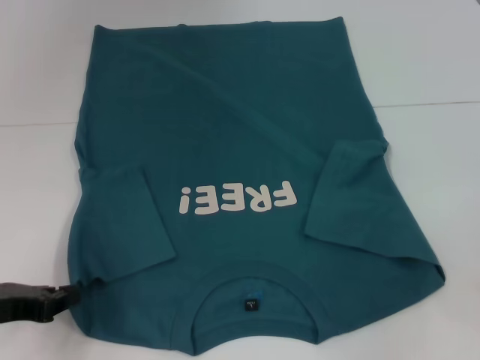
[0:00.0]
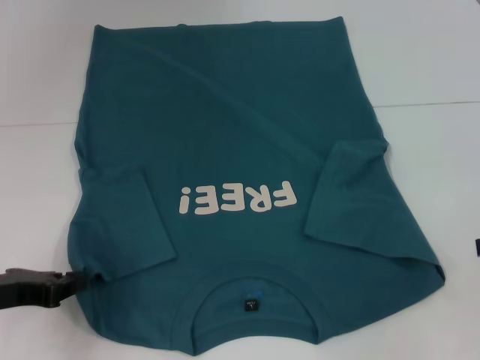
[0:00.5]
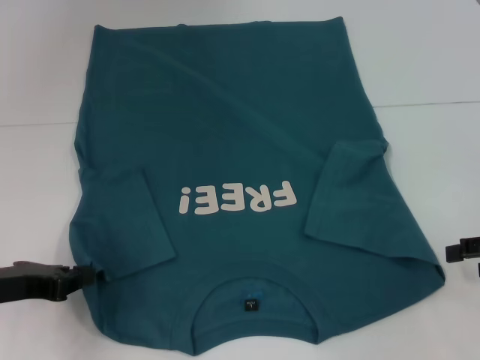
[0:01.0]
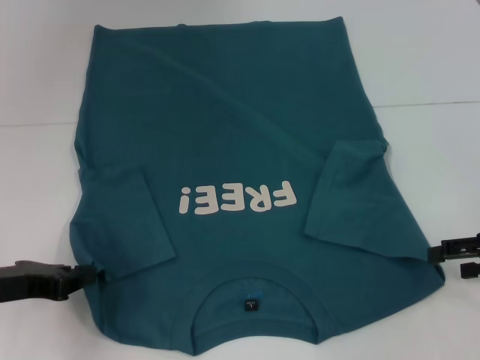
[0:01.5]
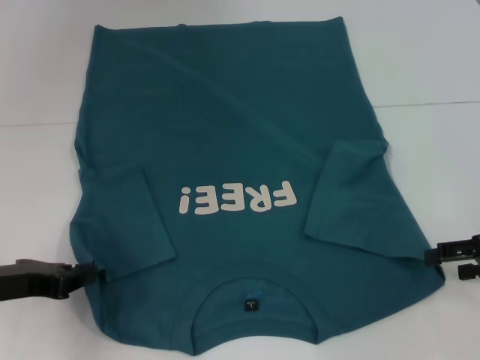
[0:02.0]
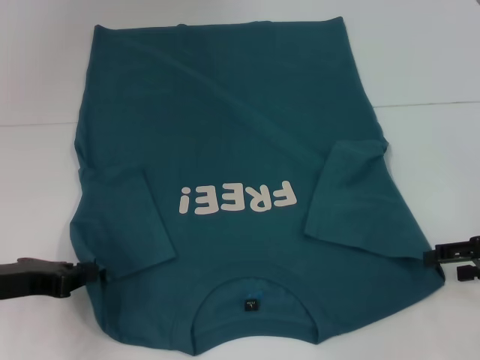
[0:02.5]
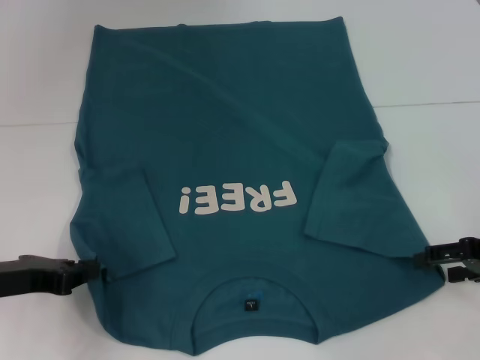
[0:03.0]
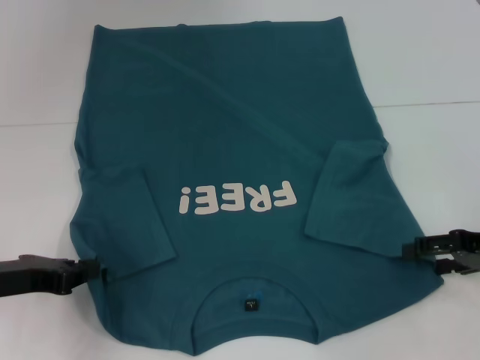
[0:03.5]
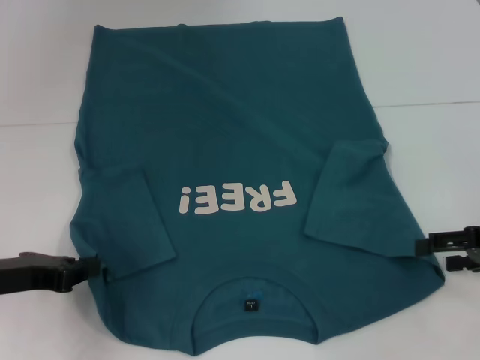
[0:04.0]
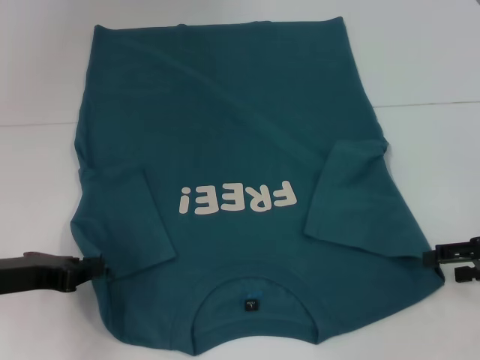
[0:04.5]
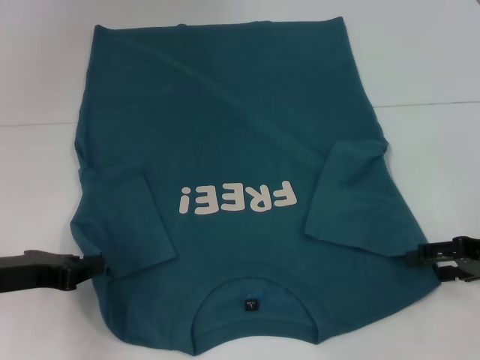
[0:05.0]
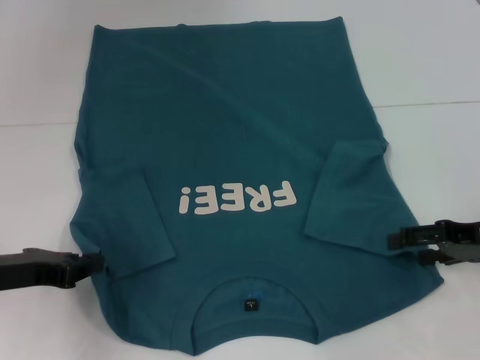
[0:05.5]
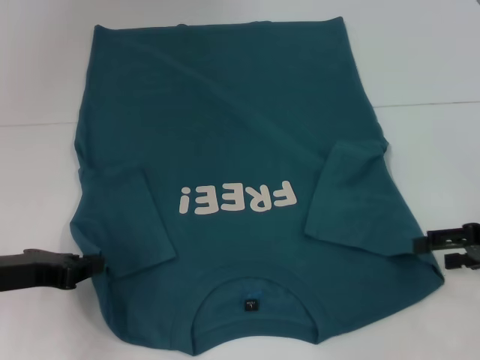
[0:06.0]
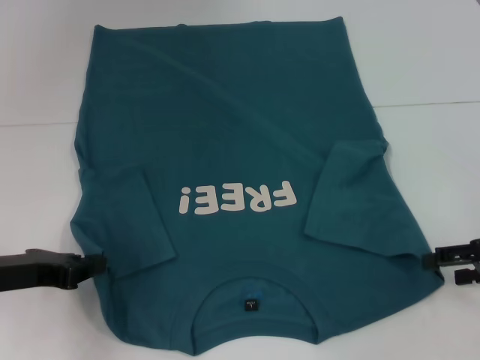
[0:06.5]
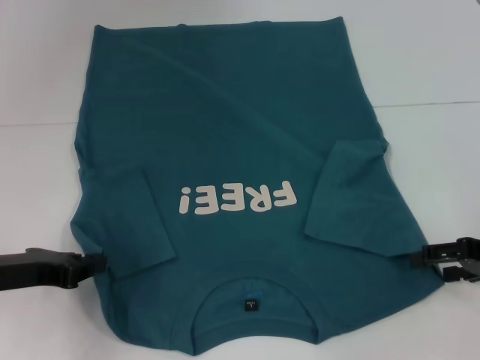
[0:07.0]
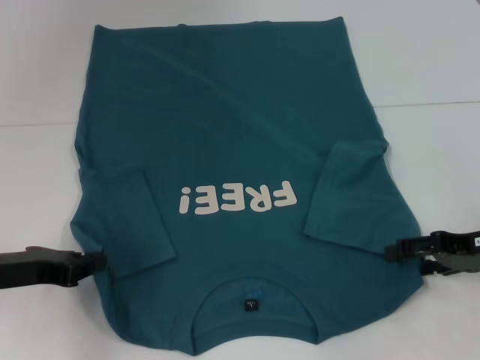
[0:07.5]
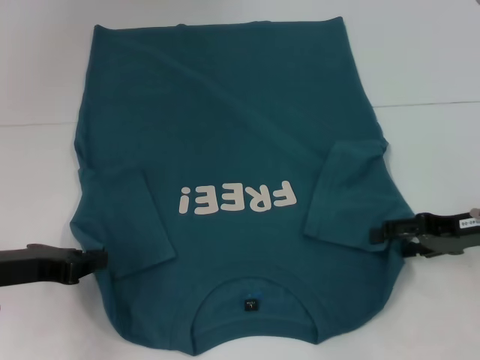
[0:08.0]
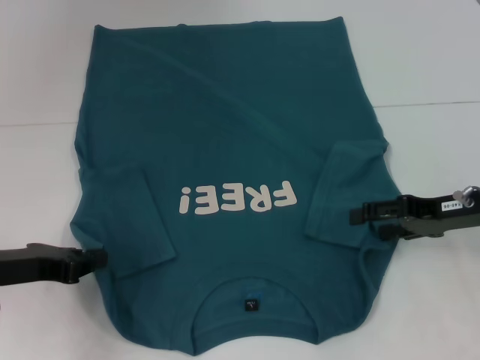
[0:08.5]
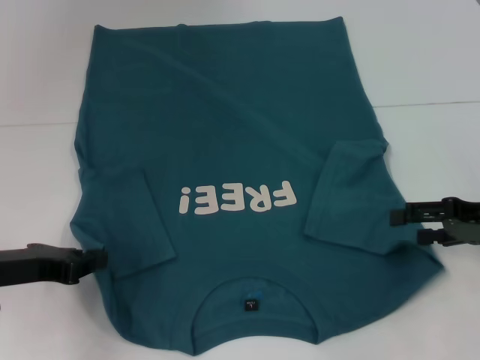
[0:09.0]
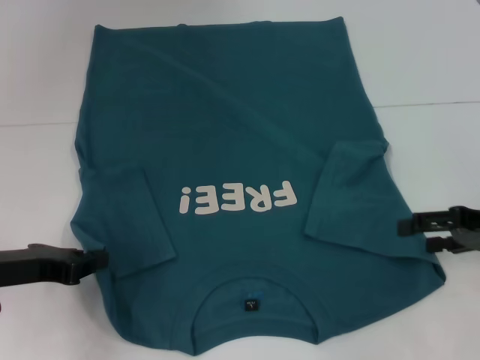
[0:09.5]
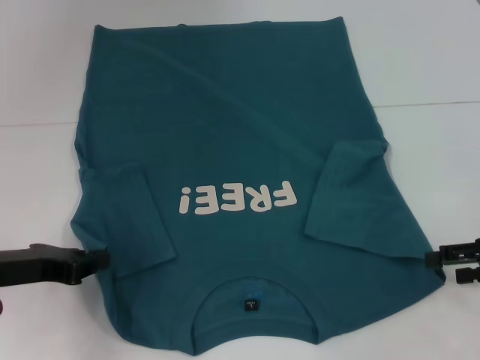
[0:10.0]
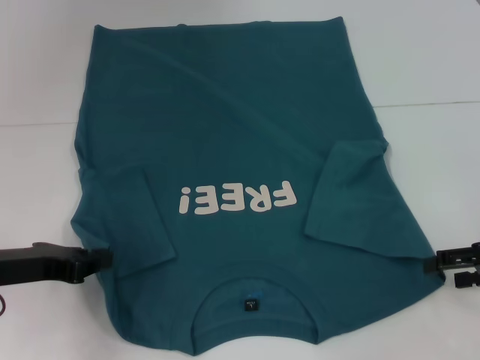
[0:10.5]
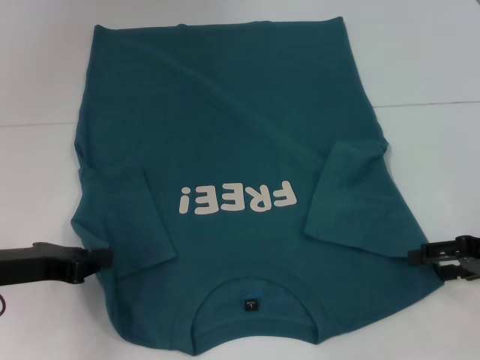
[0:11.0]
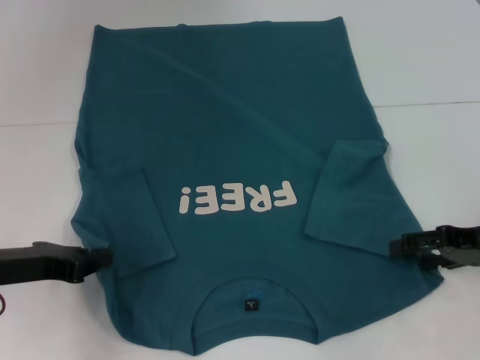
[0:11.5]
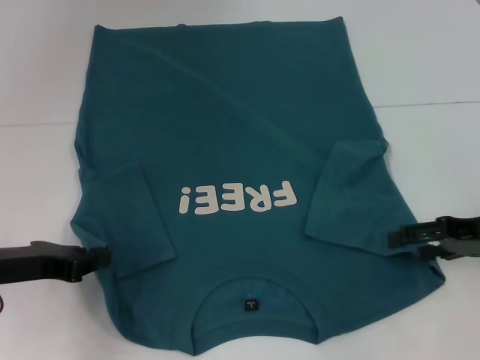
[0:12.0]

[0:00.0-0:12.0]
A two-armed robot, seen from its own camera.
0:00.0 to 0:02.0: The right gripper goes about 5 cm downward.
0:02.0 to 0:08.0: There are only small adjustments of the grippers.
0:08.0 to 0:10.0: The right gripper shifts roughly 5 cm to the right.
0:10.0 to 0:12.0: There are only small adjustments of the grippers.

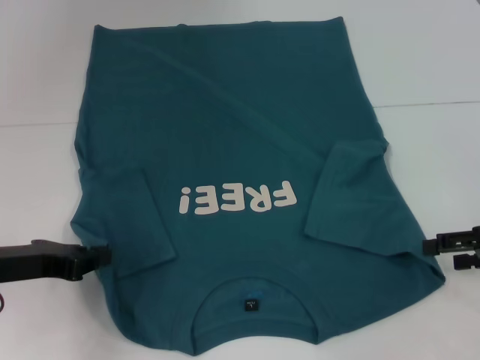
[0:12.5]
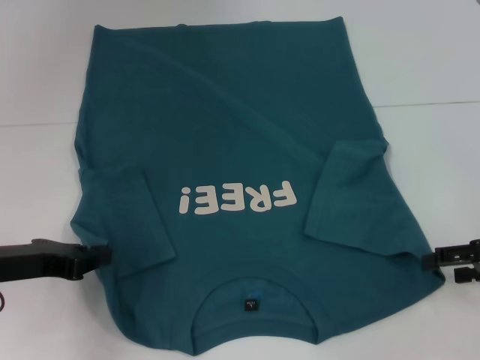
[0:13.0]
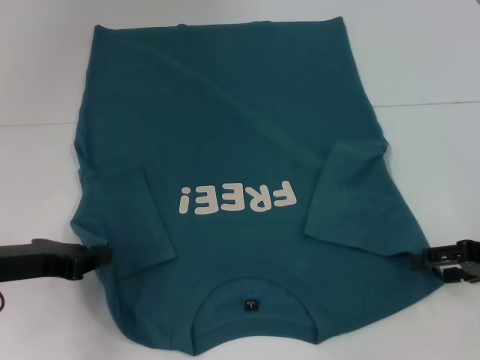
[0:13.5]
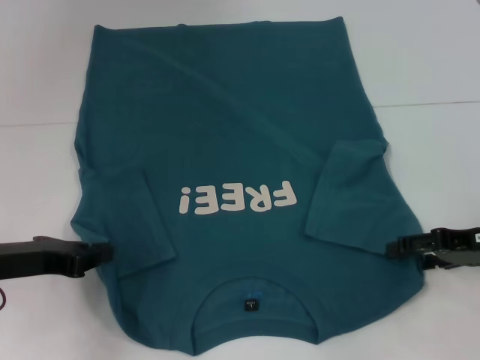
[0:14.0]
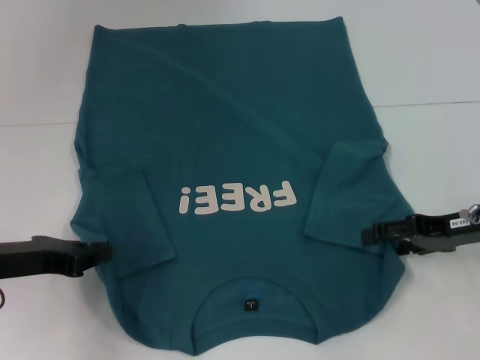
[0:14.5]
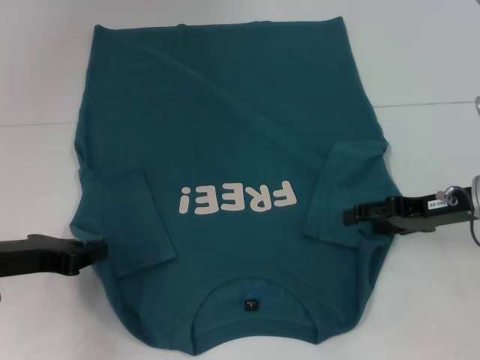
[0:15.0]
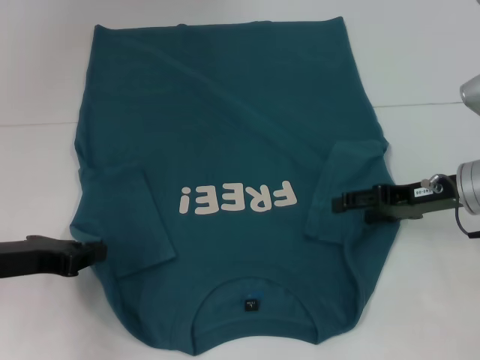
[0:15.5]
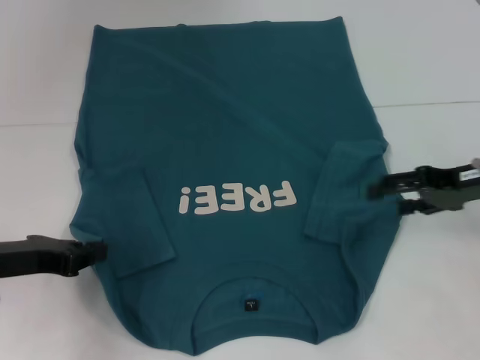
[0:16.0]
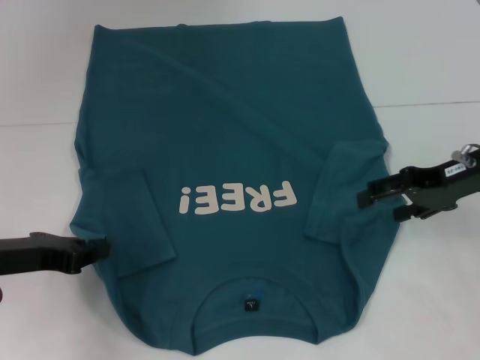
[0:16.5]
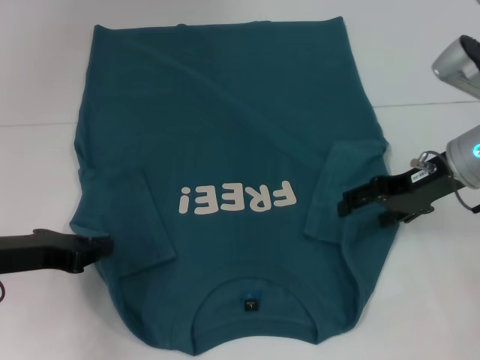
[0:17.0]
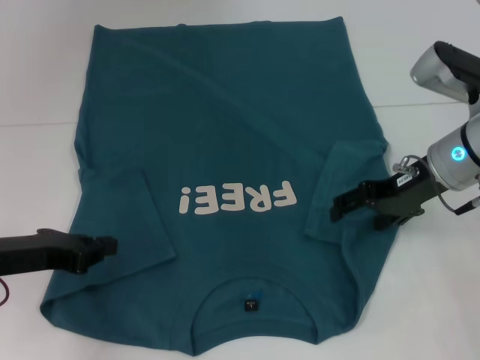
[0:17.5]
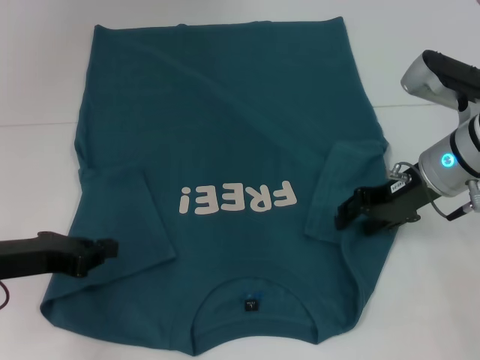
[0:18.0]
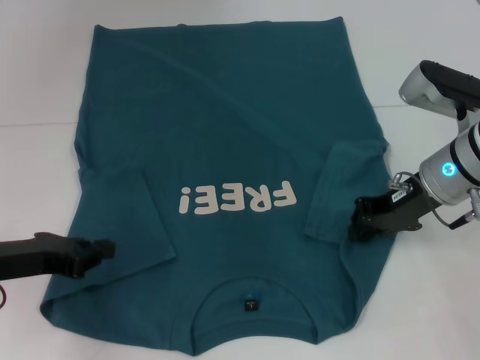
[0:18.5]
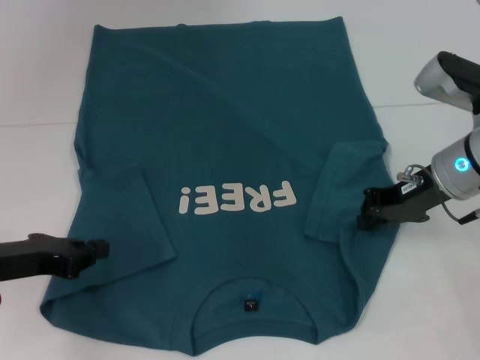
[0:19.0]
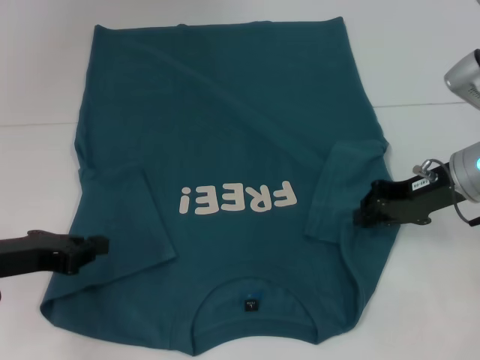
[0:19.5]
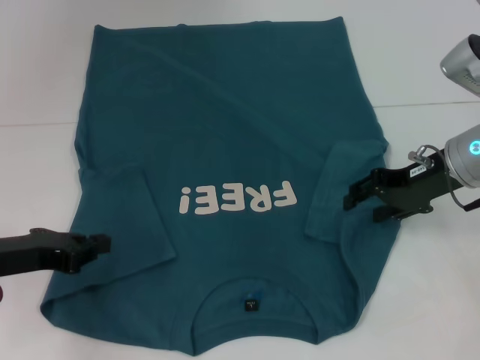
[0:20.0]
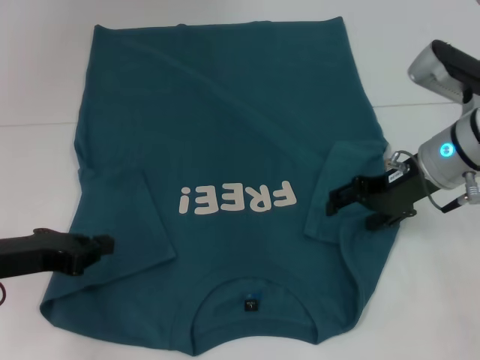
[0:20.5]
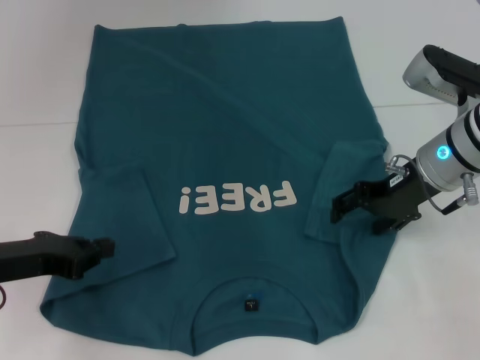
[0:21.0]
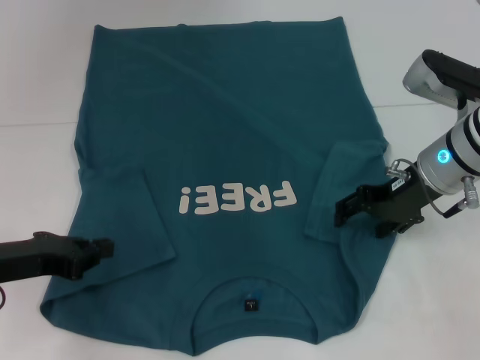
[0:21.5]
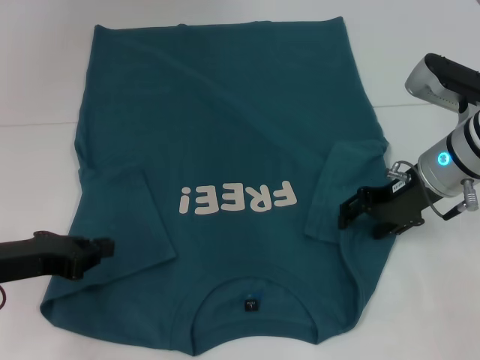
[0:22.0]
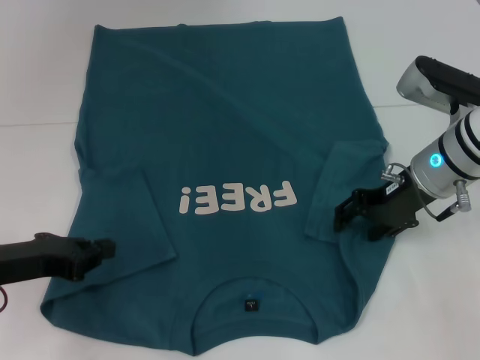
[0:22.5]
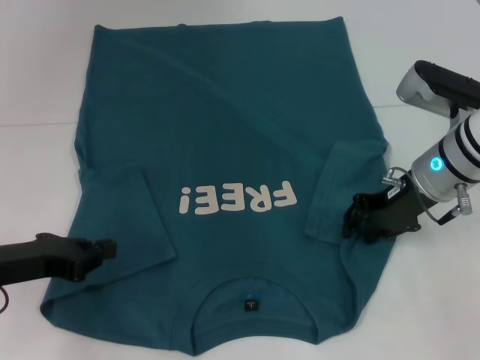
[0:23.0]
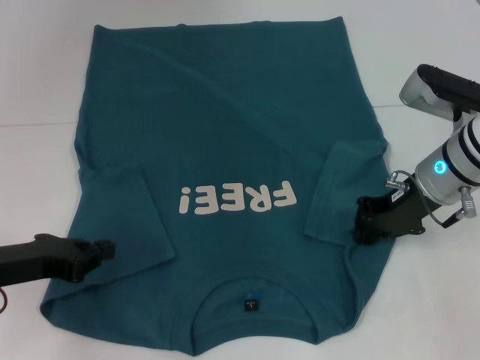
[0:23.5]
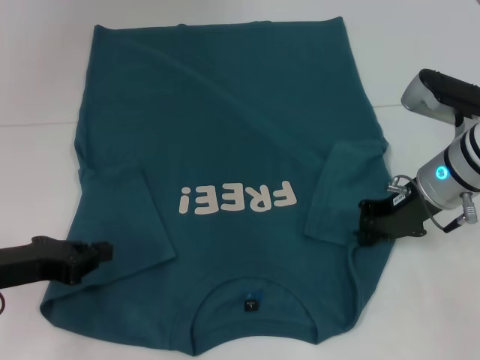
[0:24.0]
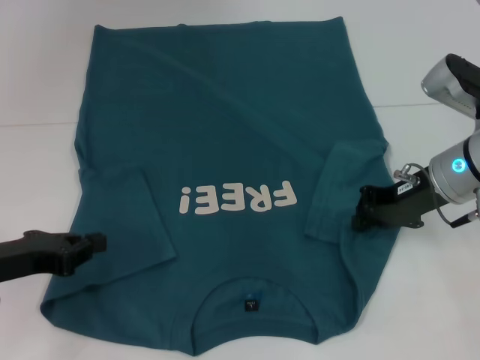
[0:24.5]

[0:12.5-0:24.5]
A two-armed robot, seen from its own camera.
0:12.5 to 0:14.5: The right gripper is displaced to the left by some 5 cm.
0:14.5 to 0:16.5: The right gripper heads upward, covering roughly 5 cm.
0:16.5 to 0:18.5: The right gripper travels to the left by about 5 cm, and closes up.
0:18.5 to 0:20.5: The right gripper opens.
0:20.5 to 0:22.5: The grippers make only small movements.
0:22.5 to 0:24.5: The right gripper closes.

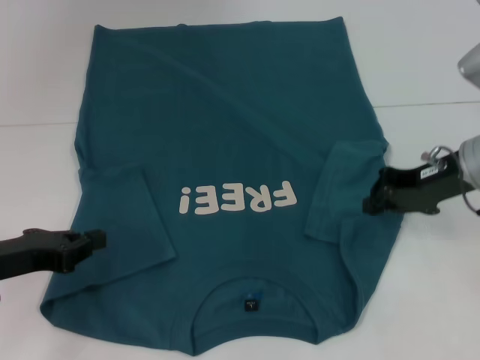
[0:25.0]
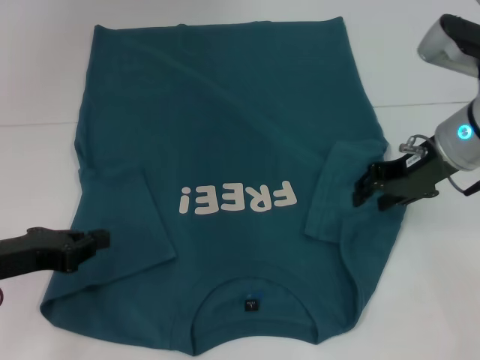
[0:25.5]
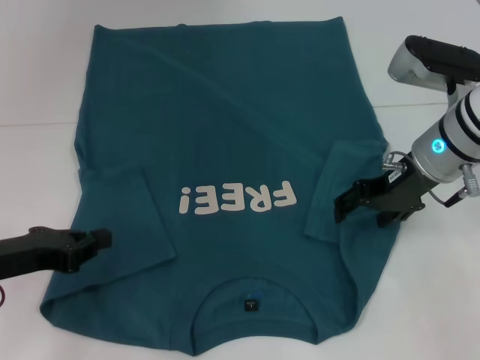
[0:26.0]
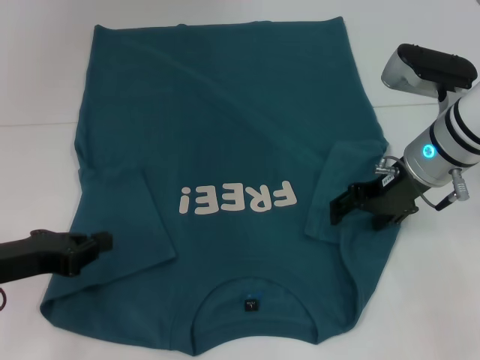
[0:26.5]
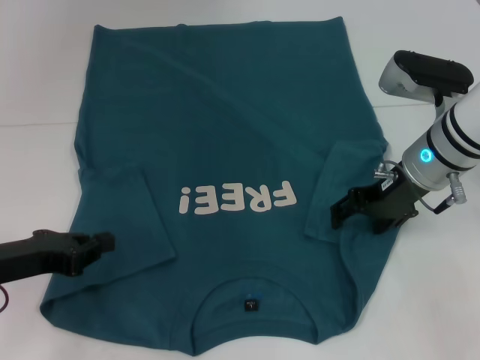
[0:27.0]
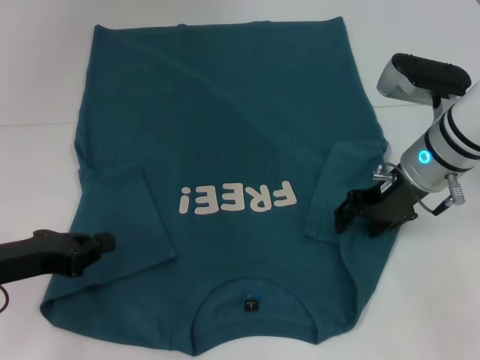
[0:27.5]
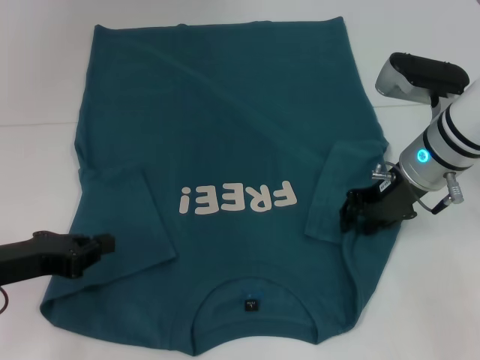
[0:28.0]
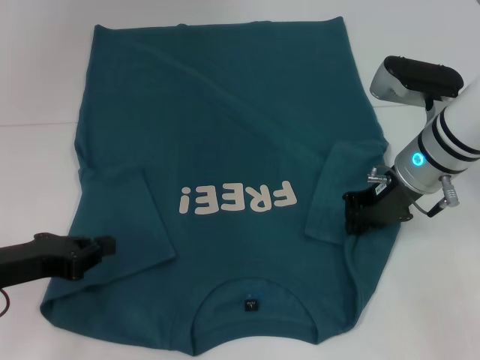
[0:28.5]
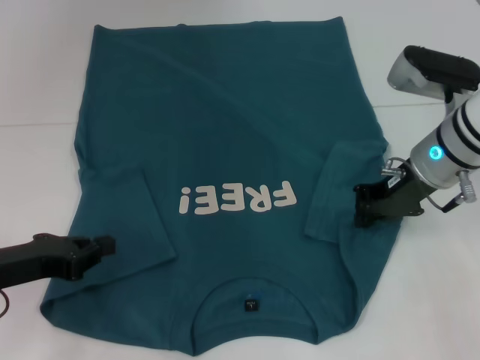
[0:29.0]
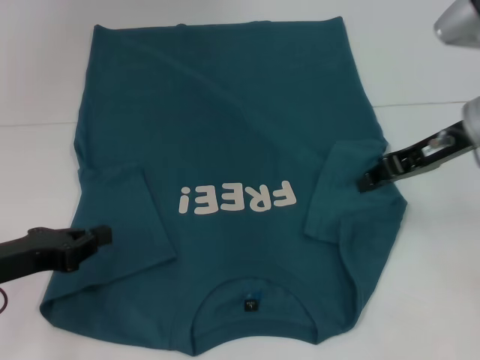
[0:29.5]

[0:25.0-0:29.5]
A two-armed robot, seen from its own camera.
0:25.0 to 0:27.0: The right gripper is displaced to the left by approximately 5 cm, and opens its fingers.
0:27.0 to 0:29.5: The right gripper goes some 5 cm upward, and closes.
